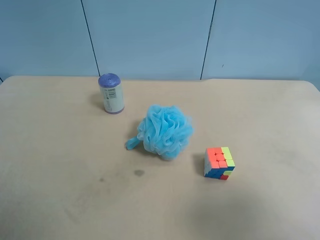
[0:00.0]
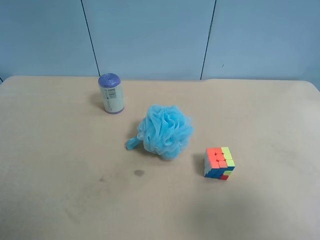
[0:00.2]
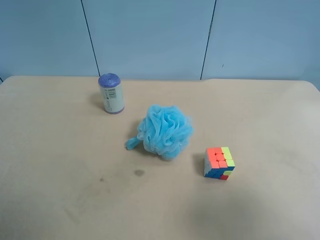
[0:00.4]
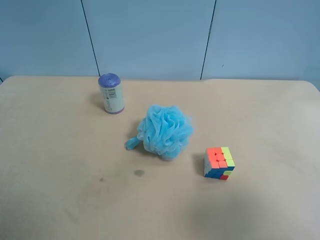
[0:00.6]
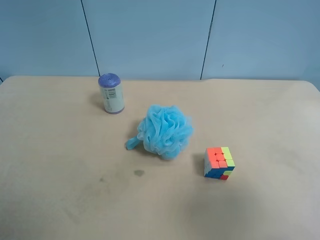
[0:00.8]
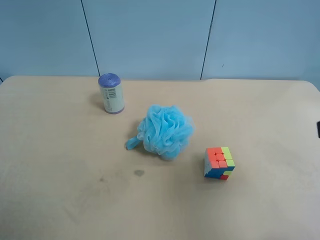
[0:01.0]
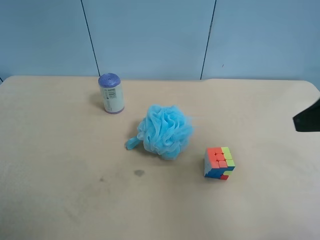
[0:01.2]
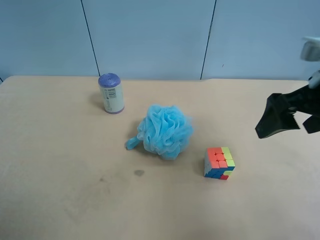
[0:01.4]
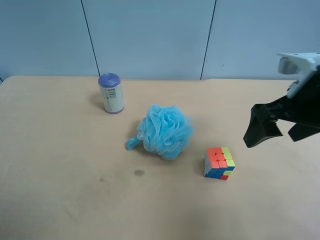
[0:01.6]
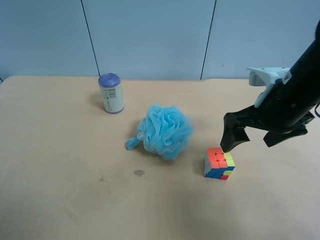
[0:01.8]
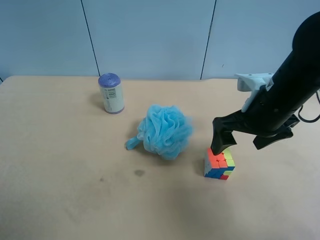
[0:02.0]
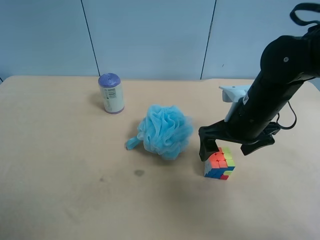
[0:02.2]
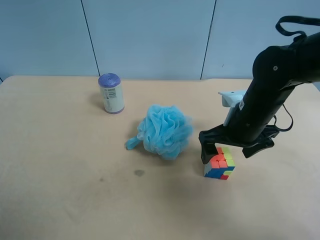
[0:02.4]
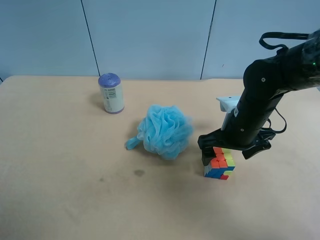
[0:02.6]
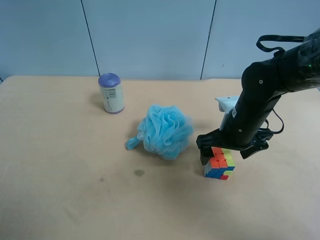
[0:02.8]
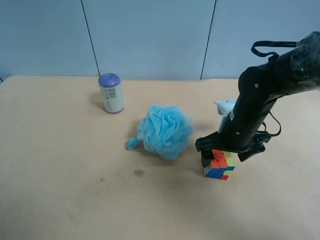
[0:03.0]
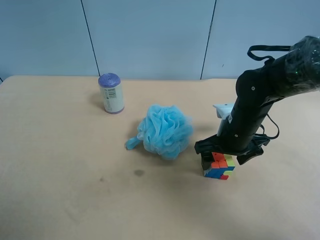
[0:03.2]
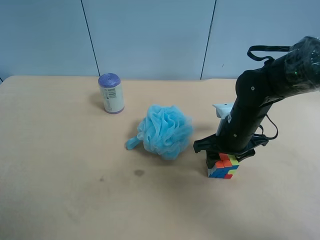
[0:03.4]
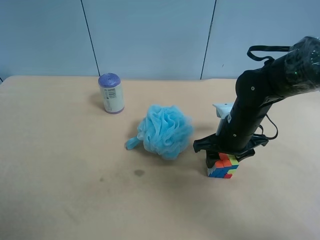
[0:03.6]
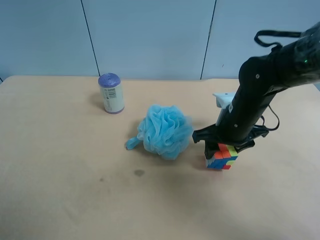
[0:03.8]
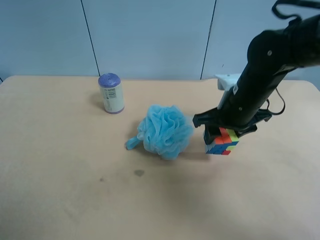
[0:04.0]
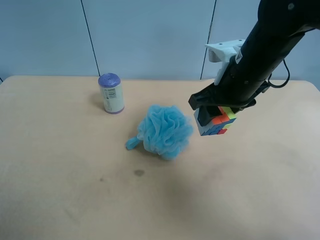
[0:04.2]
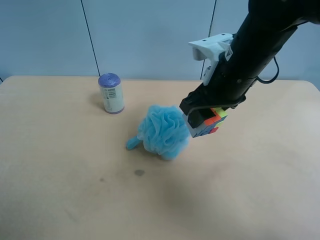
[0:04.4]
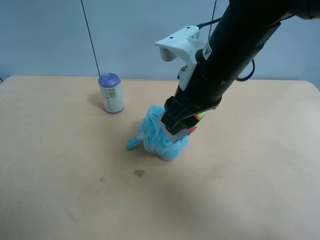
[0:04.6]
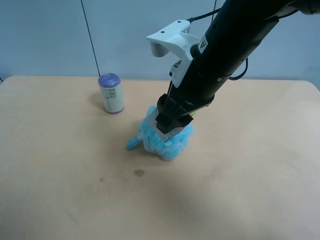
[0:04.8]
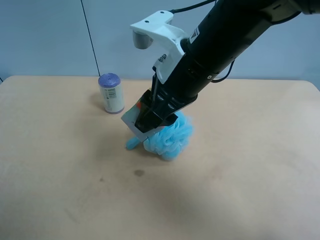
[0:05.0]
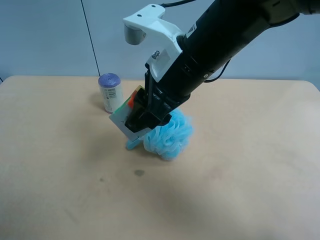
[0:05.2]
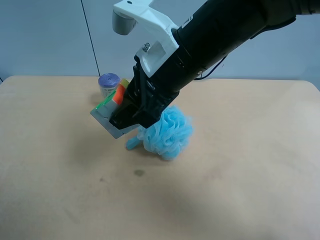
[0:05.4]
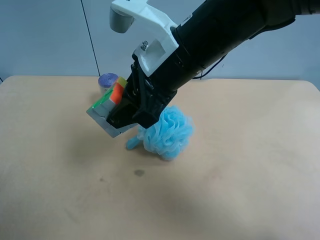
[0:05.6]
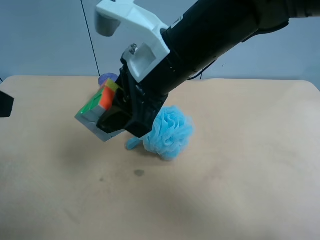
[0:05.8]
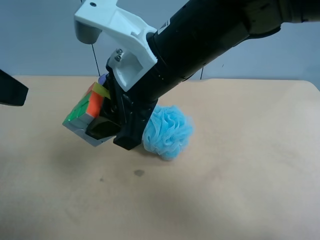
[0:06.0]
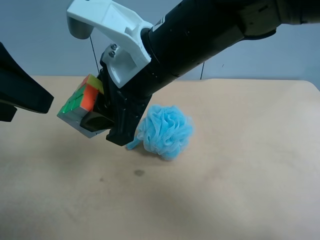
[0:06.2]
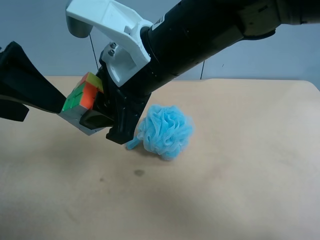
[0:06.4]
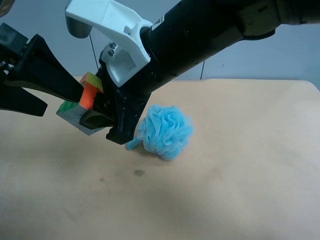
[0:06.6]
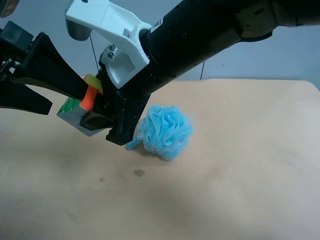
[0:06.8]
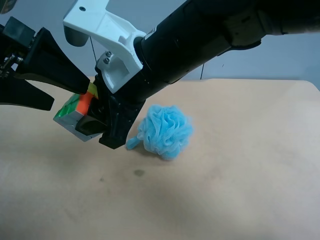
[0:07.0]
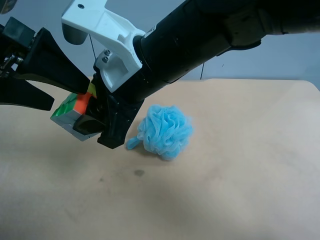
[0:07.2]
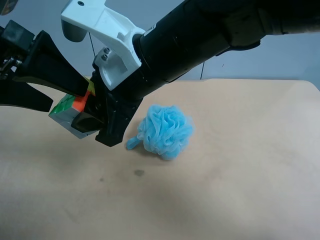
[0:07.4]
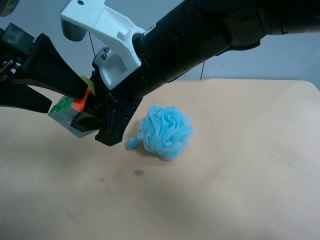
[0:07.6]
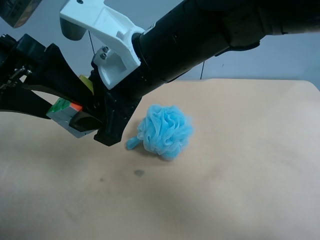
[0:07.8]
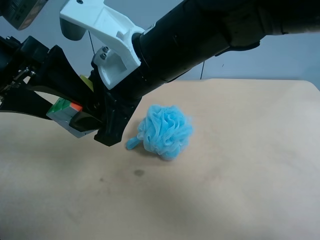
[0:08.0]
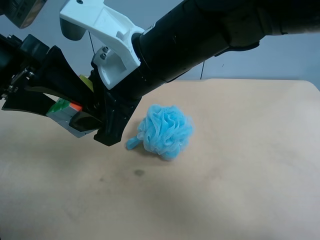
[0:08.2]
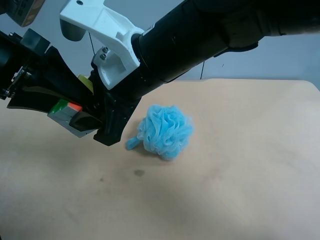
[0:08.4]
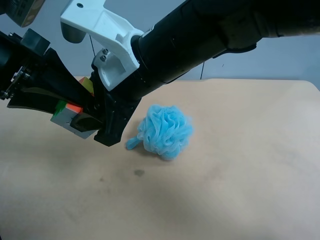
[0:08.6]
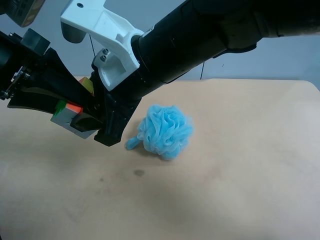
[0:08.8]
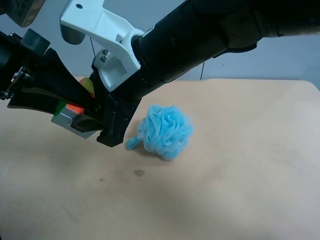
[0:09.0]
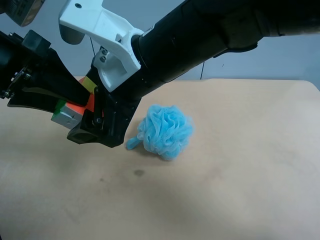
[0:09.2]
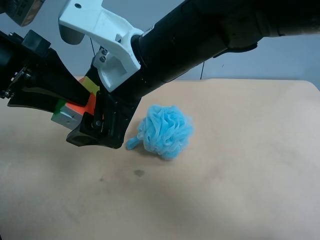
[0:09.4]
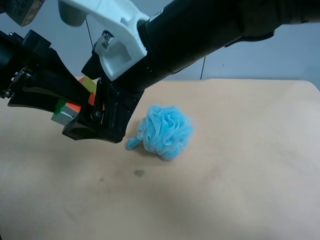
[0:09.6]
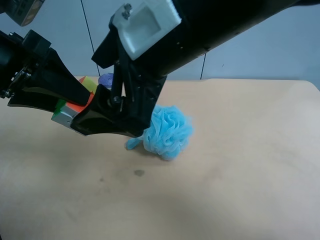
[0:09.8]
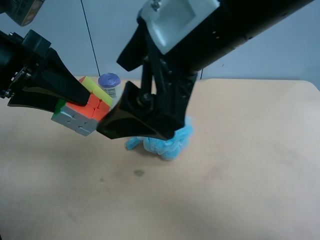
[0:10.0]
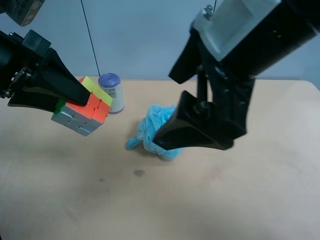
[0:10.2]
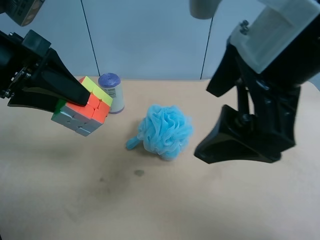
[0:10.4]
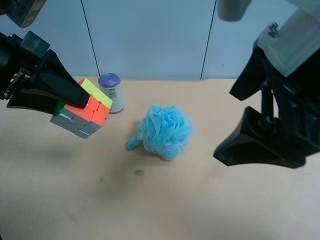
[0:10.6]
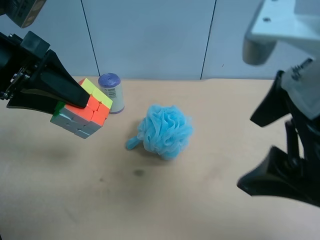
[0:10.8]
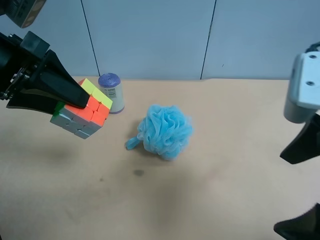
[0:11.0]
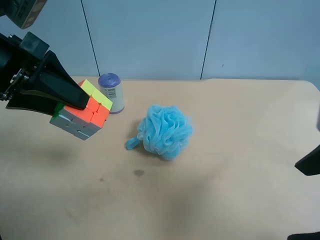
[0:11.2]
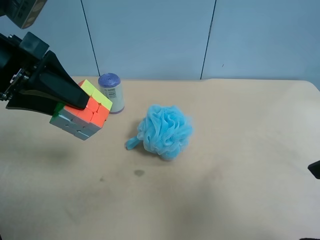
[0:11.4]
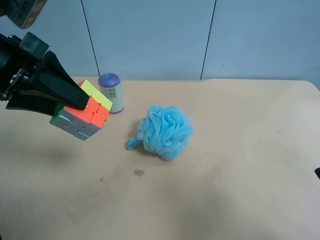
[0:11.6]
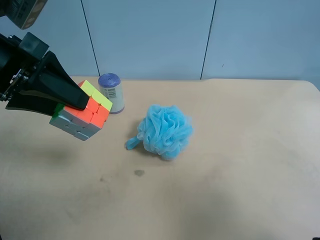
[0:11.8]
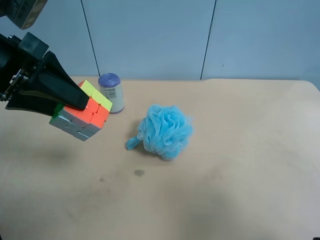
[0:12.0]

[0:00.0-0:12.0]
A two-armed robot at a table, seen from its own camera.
Task of the whole recording: use the right gripper to pick up the item and transfer it from the right gripper to the left gripper.
0:00.0 to 0:01.6: The right gripper goes about 20 cm forward.
0:01.6 to 0:03.0: The right gripper moves downward, to the left and forward, roughly 15 cm.
0:03.0 to 0:04.4: The right gripper is displaced upward and to the left by roughly 15 cm, and closes.
0:04.4 to 0:06.0: The right gripper is displaced to the left and backward by approximately 10 cm; the left gripper goes roughly 15 cm forward, upward and to the right.
0:06.0 to 0:07.6: The left gripper heads forward, covering approximately 5 cm.
0:07.6 to 0:09.0: The left gripper closes its fingers.
0:09.0 to 0:10.4: The right gripper moves to the right, upward and backward, approximately 15 cm, and opens.
0:10.4 to 0:12.0: The right gripper travels to the right, backward and downward by roughly 20 cm.

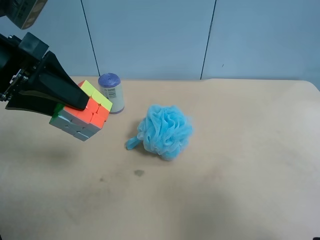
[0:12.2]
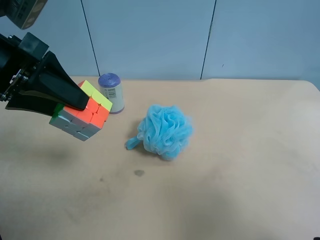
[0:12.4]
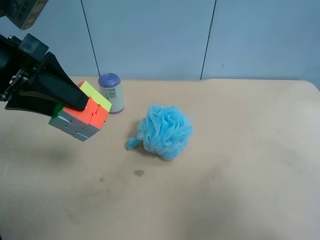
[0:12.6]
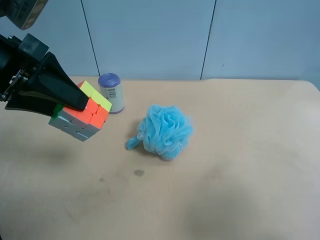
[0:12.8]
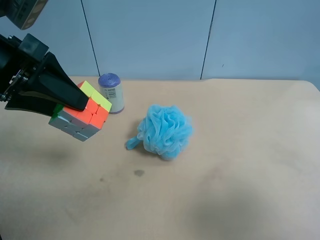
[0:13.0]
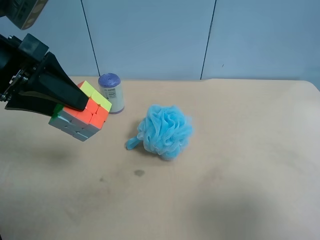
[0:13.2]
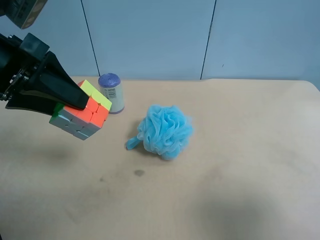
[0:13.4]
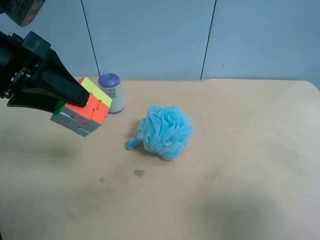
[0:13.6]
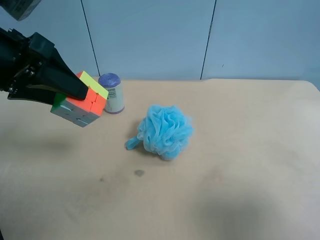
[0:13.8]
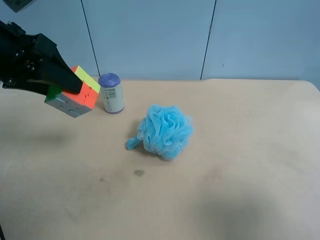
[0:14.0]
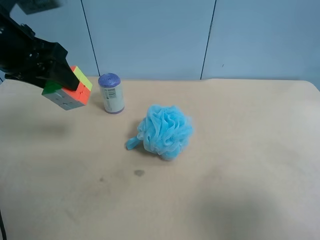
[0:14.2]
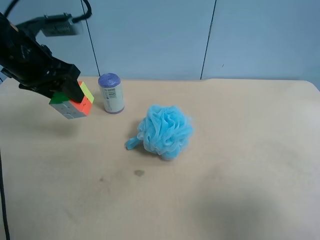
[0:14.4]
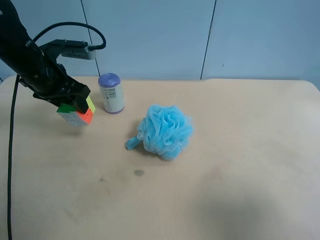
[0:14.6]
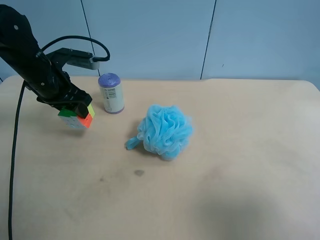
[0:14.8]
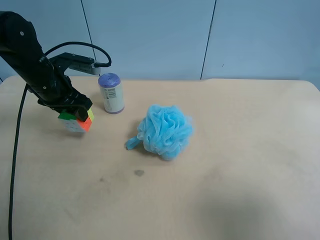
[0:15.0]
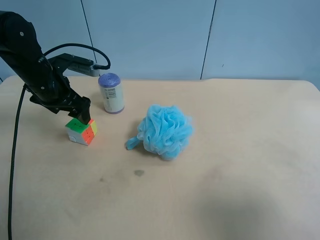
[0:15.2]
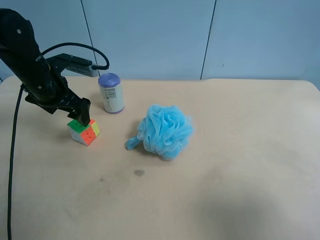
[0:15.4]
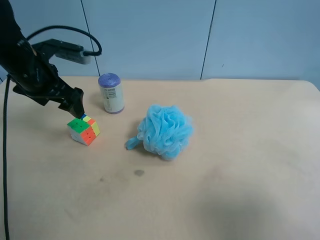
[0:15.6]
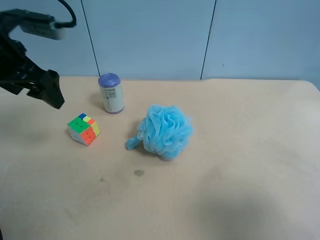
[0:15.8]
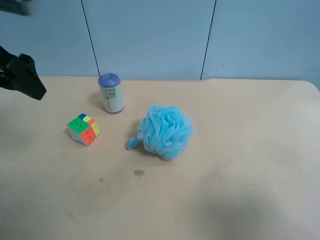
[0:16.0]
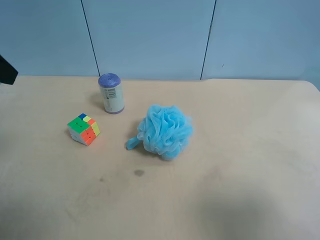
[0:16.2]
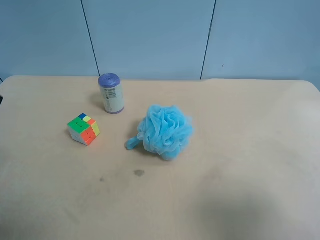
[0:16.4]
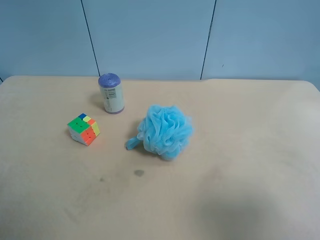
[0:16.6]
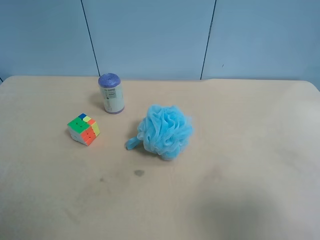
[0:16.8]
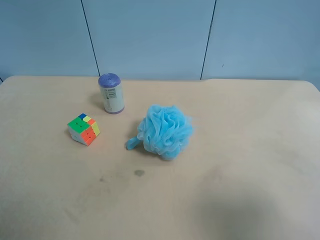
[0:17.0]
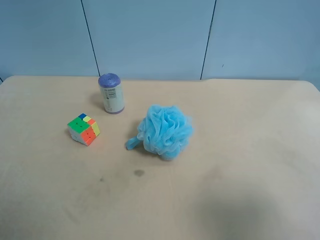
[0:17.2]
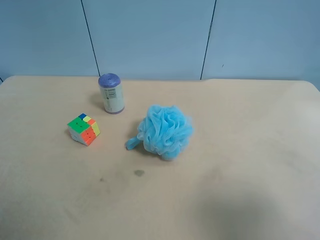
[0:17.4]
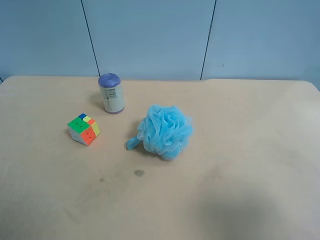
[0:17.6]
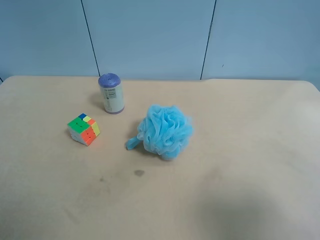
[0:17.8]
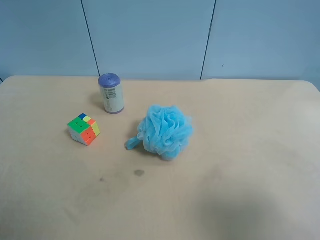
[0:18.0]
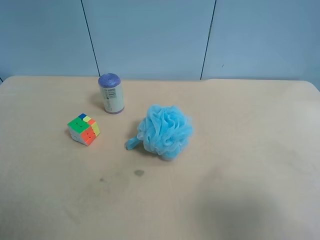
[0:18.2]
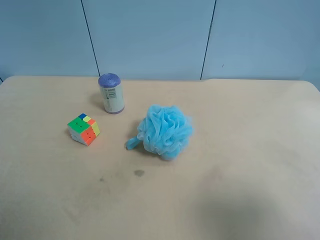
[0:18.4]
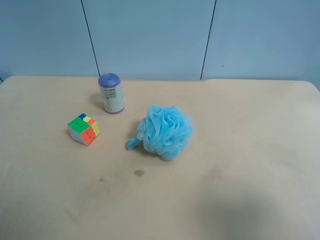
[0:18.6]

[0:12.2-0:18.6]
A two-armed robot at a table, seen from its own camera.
Task of the whole recording: use the right gripper to pick up the item and transfer it from the right gripper to the left gripper.
0:13.8 to 0:15.4: The left gripper goes some 15 cm downward and forward, and opens its fingers.
0:15.4 to 0:17.0: The left gripper moves backward, approximately 30 cm.

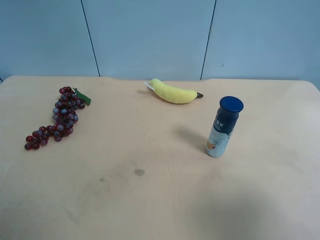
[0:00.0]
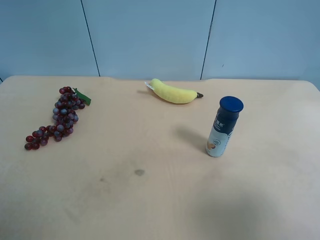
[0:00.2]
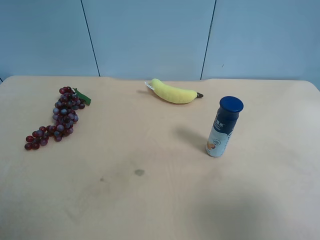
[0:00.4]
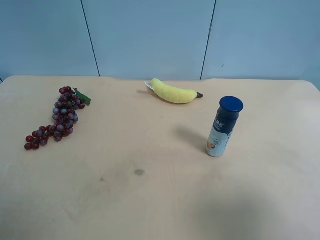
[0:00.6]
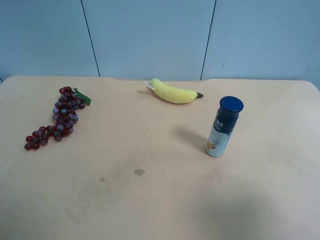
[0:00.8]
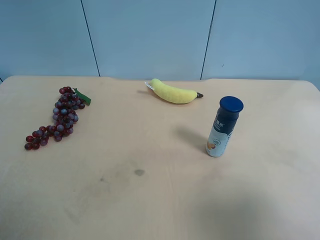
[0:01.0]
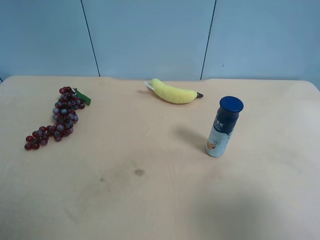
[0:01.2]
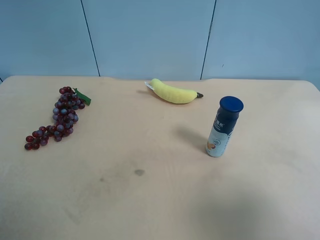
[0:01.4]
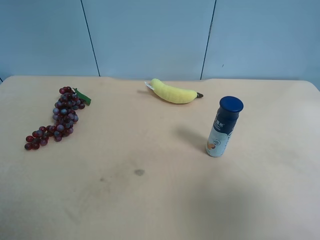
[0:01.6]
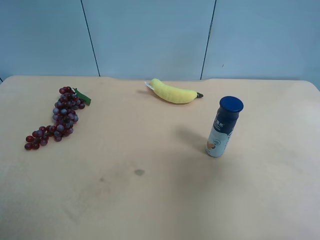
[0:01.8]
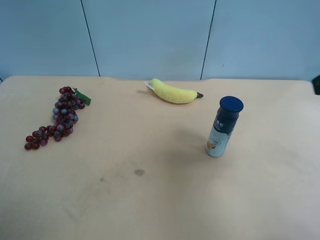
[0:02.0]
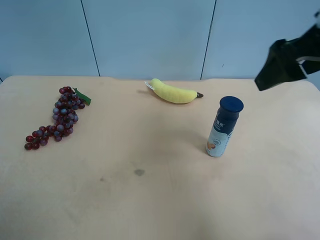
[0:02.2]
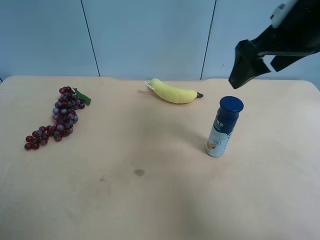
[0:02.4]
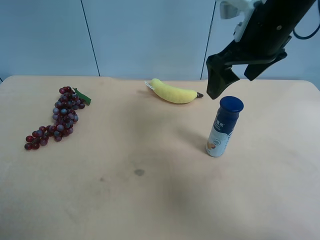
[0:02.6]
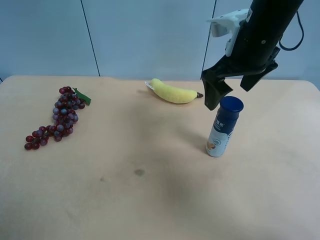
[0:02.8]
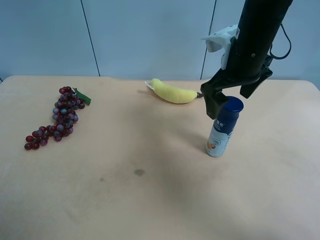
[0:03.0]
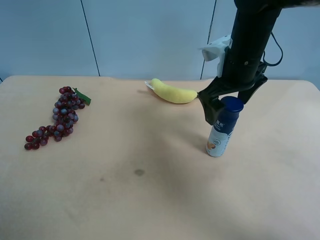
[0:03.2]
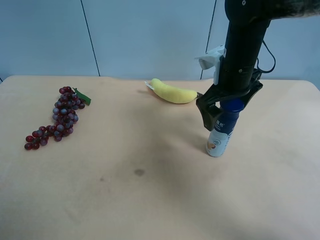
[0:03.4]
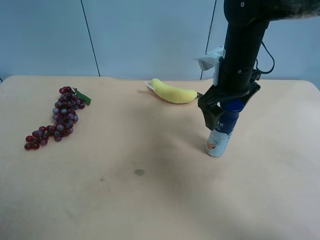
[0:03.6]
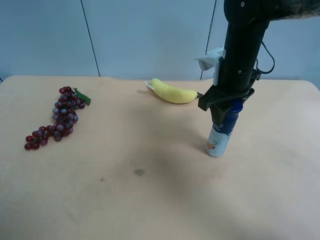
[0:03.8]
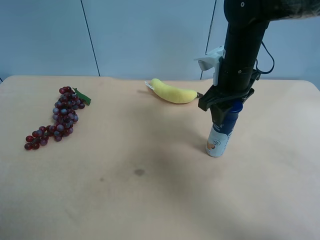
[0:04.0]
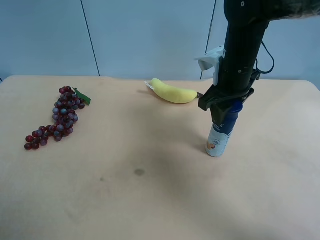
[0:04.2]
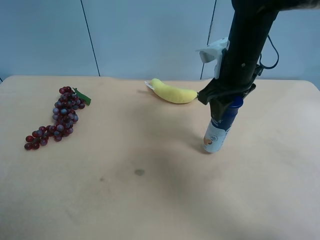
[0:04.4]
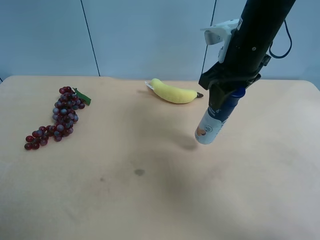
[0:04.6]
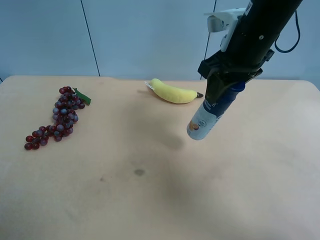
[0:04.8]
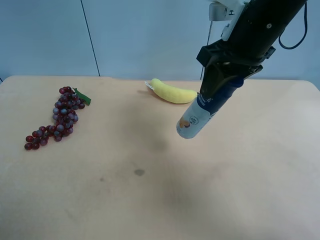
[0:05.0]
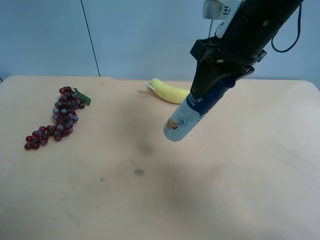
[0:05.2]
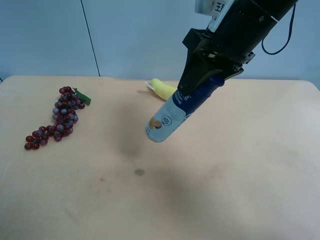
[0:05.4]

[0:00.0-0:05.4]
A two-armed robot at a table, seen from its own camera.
Task of the whole recording: use the right gripper to pick up the item and transfer it from the right gripper to the left gripper.
0:00.0 to 0:01.4: Both grippers stay about where they are.
0:01.4 to 0:02.8: The right gripper goes roughly 35 cm forward and to the left.
0:02.8 to 0:04.0: The right gripper is displaced downward by approximately 5 cm, and closes.
0:04.0 to 0:05.4: The right gripper is displaced upward and backward by about 10 cm.
